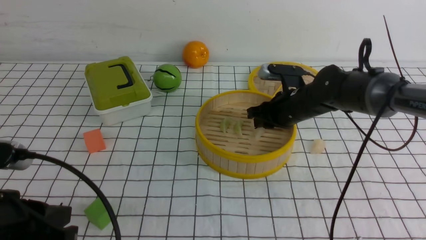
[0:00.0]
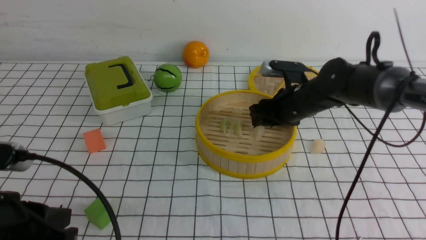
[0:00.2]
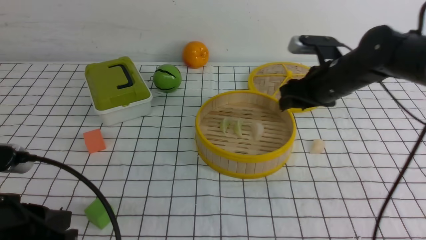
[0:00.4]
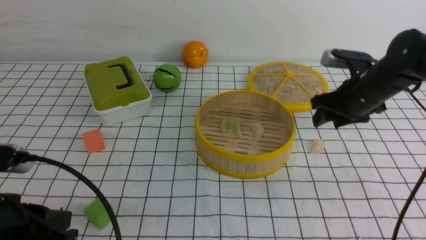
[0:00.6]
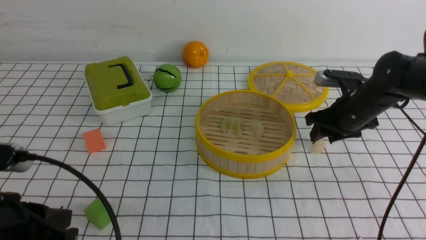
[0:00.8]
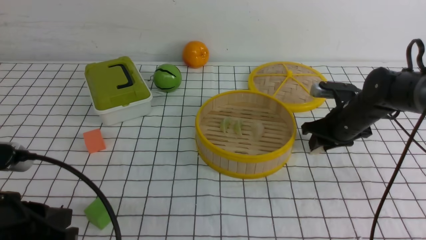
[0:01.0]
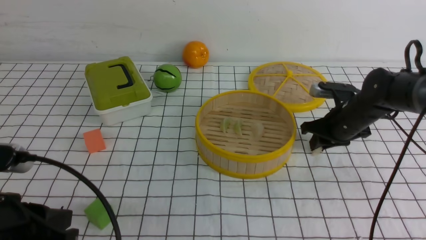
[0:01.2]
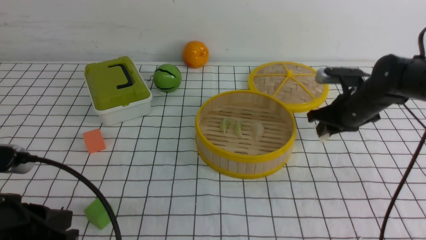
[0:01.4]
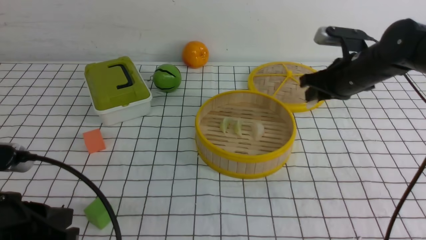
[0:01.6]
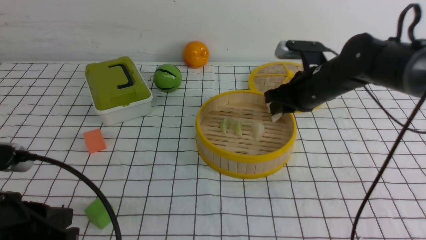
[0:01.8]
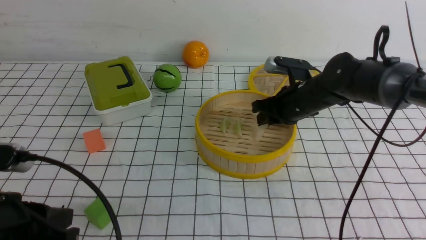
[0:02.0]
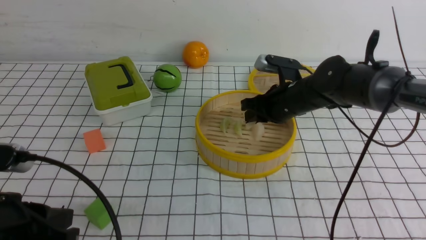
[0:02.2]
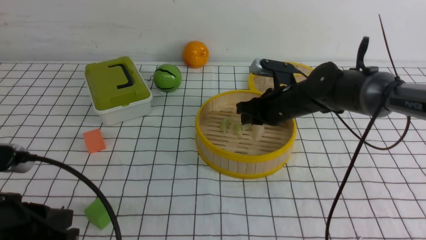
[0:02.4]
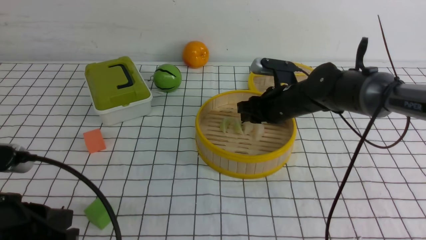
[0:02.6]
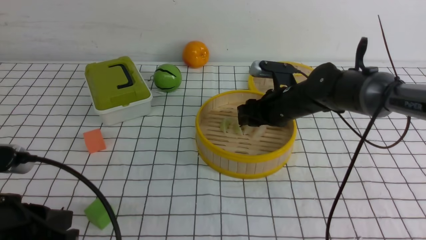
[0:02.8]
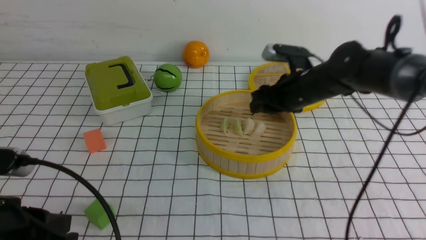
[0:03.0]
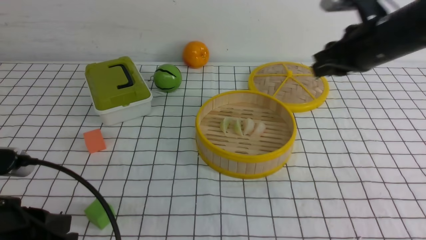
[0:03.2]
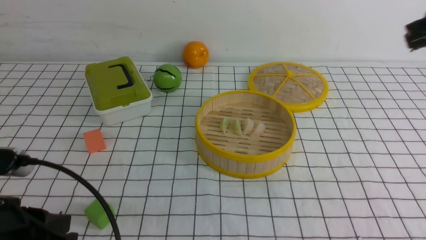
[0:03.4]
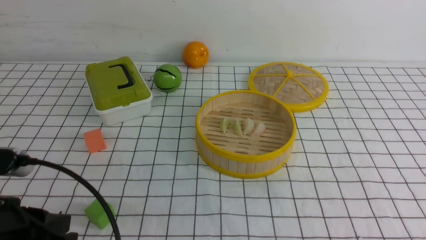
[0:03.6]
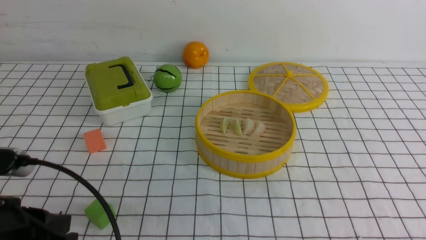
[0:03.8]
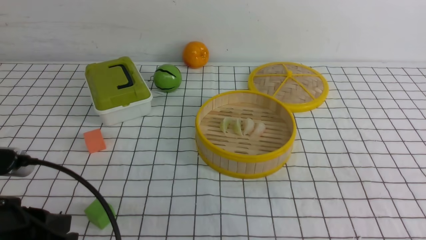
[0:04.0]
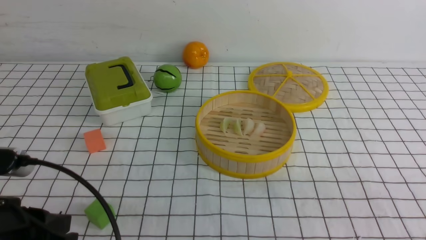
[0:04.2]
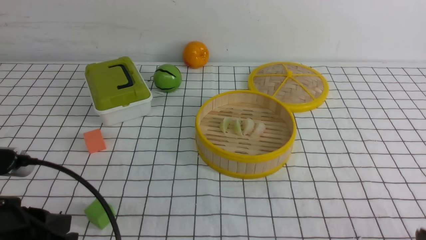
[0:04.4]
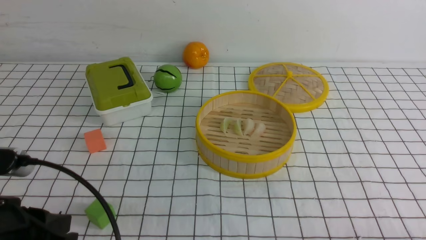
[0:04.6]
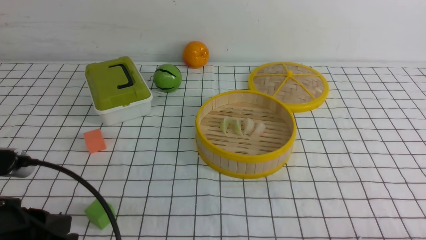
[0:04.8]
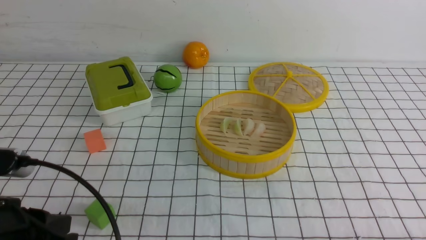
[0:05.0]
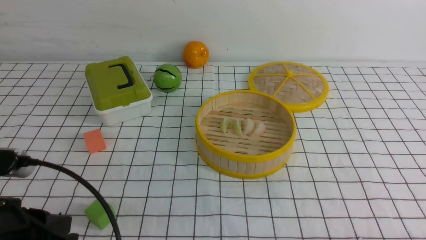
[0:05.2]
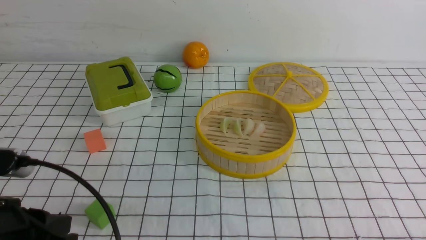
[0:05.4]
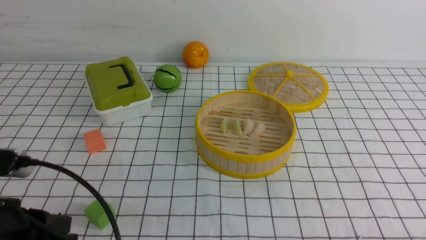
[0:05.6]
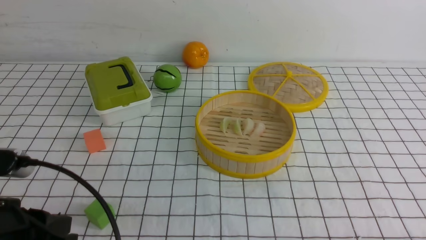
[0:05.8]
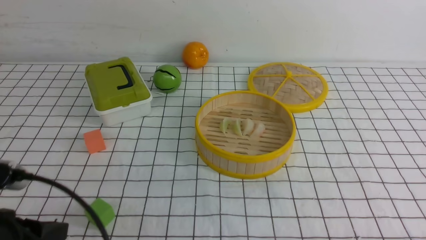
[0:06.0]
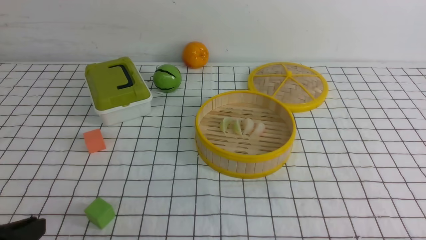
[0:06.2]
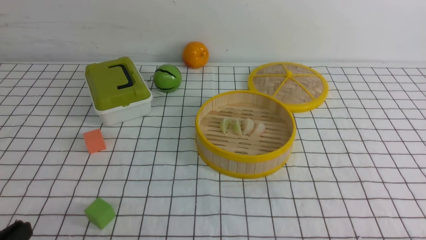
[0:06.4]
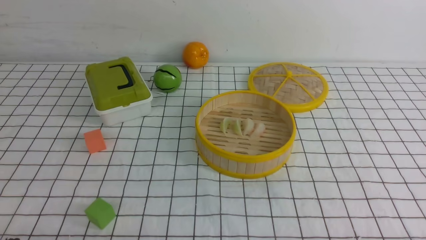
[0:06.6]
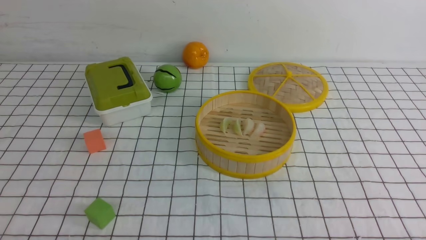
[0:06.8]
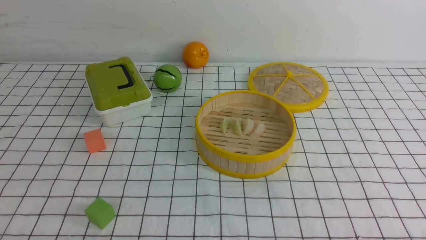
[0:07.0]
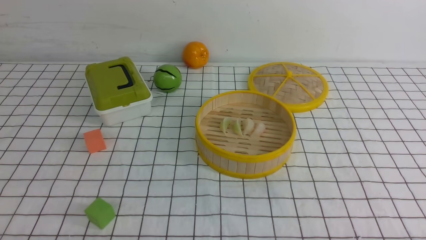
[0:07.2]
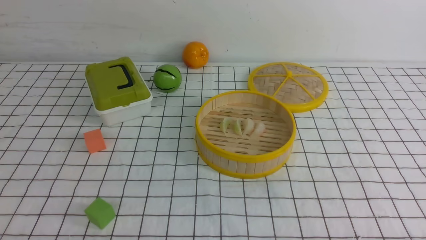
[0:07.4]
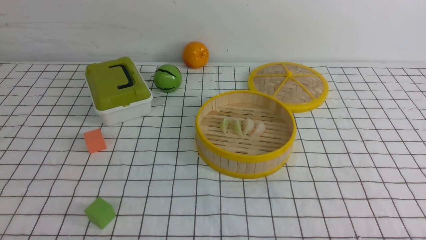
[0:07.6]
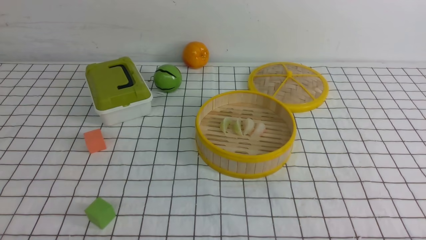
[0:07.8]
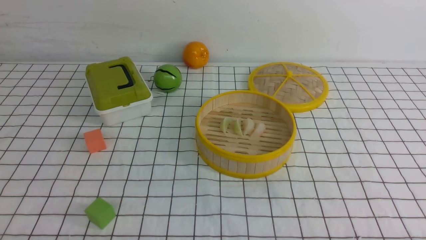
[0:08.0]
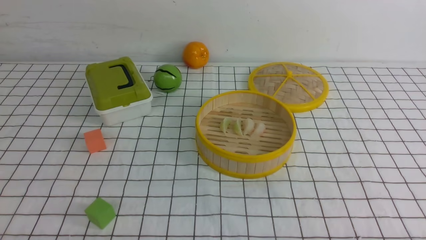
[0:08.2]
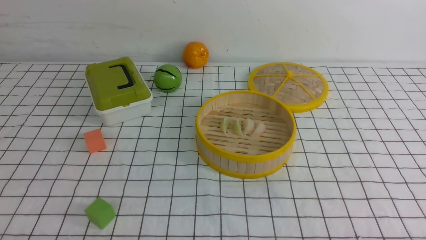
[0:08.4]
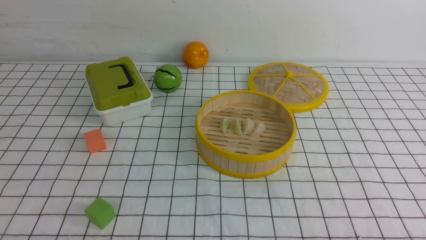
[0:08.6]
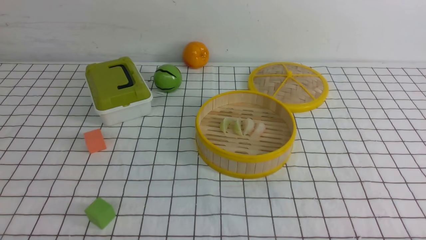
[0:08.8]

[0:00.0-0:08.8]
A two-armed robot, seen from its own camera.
Task of the whole recording: put the dumplings into the steamer on the table with the white tablecloth.
Step, 0:00.6 to 0:01.6: use the right arm to grab a dumpling.
Step, 0:01.8 to 0:03.2: use the right arm to put the dumpling into the steamer.
0:00.0 to 0:01.4: The right gripper is displaced to the right by some 10 cm.
0:01.4 to 0:03.0: The right gripper heads to the left and upward, covering roughly 10 cm, and opens.
0:03.0 to 0:04.4: The right gripper moves backward, some 30 cm, and closes.
0:05.8 to 0:07.4: The left gripper travels downward and backward by approximately 10 cm.
0:07.4 to 0:08.8: The two grippers keep their place.
